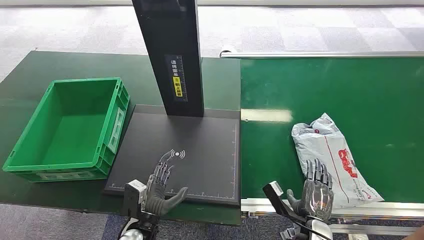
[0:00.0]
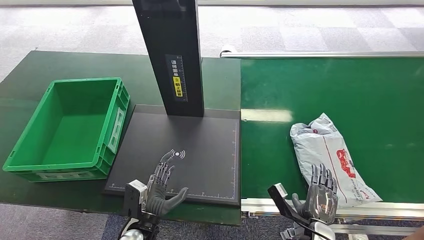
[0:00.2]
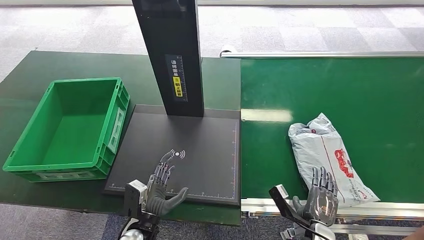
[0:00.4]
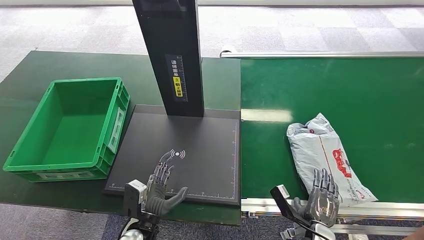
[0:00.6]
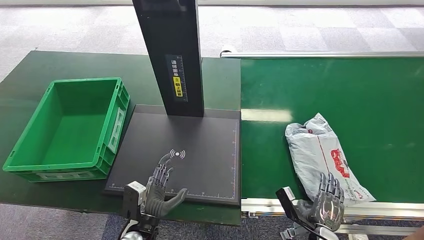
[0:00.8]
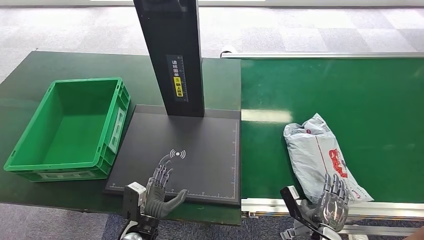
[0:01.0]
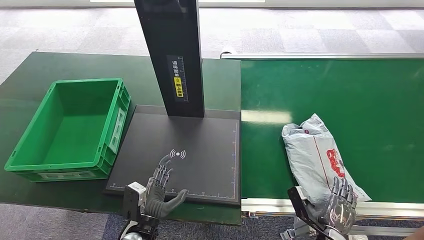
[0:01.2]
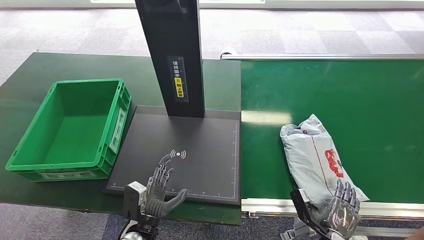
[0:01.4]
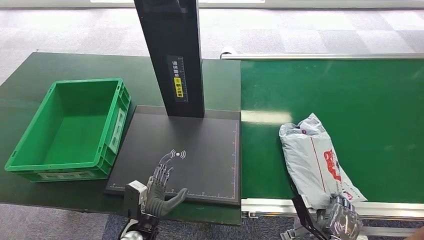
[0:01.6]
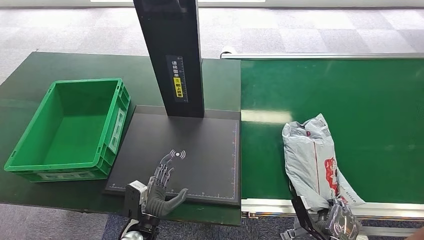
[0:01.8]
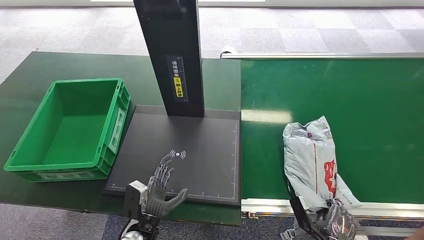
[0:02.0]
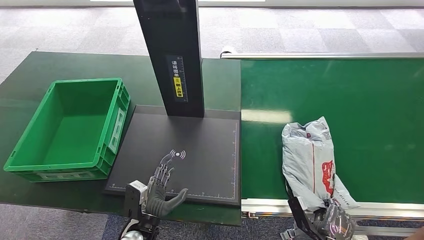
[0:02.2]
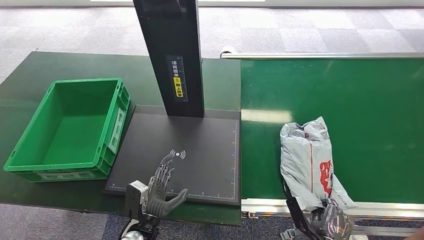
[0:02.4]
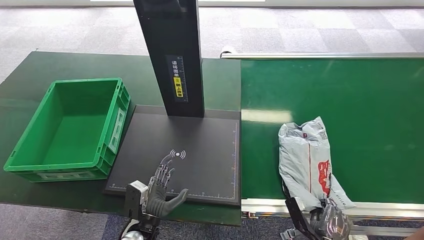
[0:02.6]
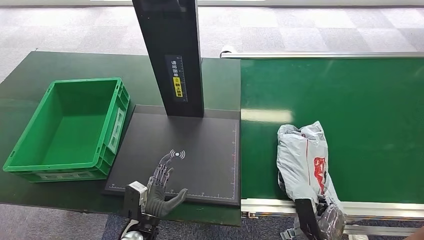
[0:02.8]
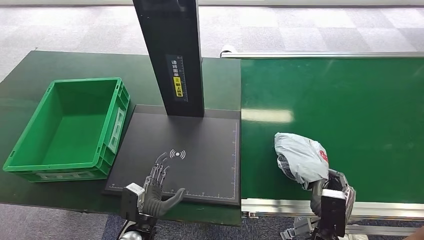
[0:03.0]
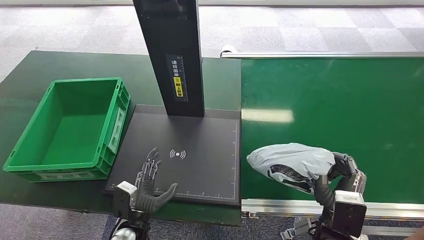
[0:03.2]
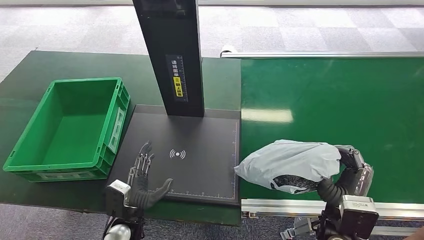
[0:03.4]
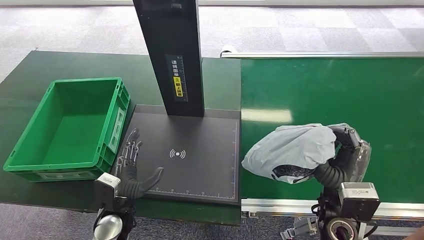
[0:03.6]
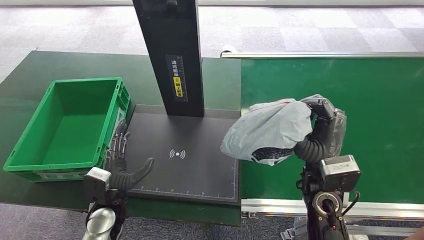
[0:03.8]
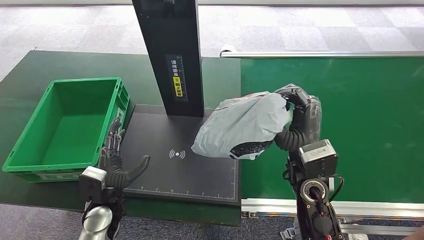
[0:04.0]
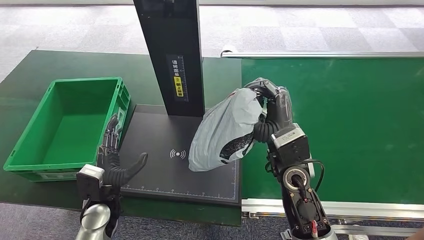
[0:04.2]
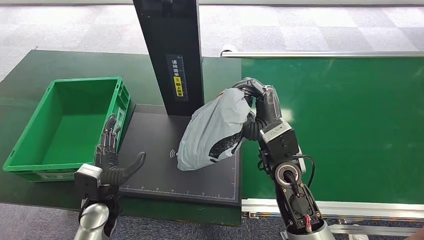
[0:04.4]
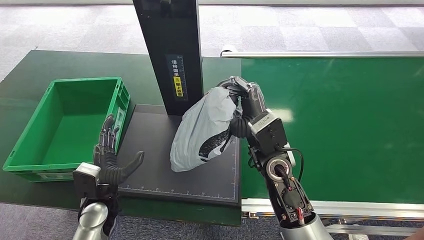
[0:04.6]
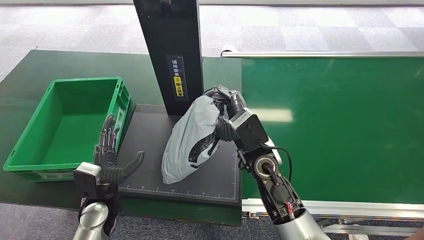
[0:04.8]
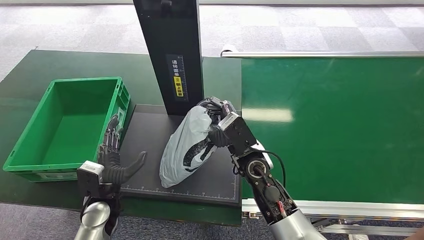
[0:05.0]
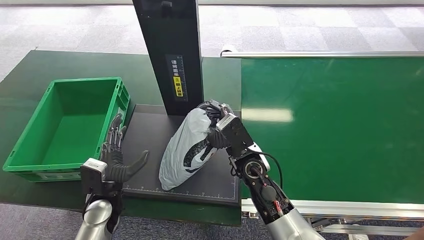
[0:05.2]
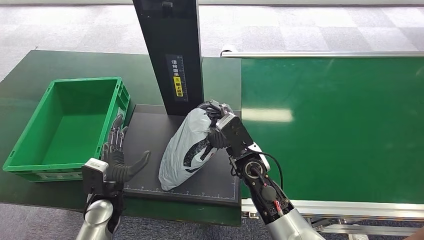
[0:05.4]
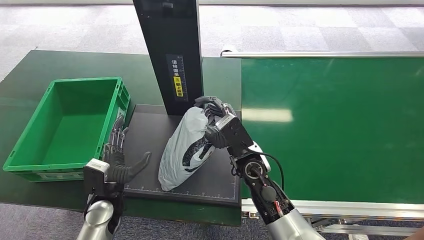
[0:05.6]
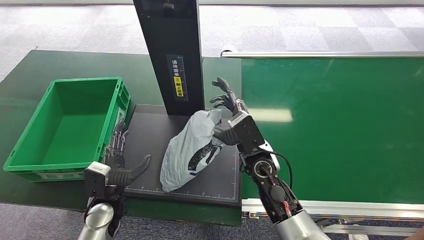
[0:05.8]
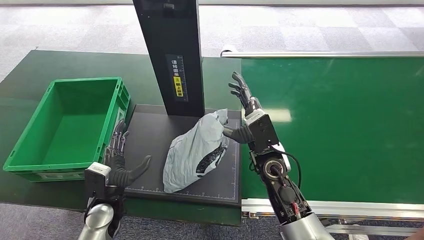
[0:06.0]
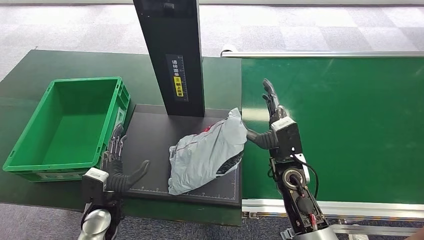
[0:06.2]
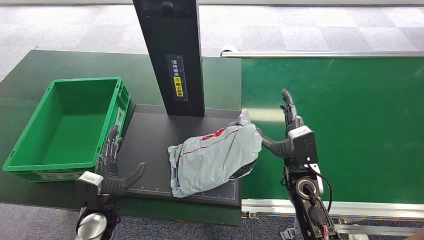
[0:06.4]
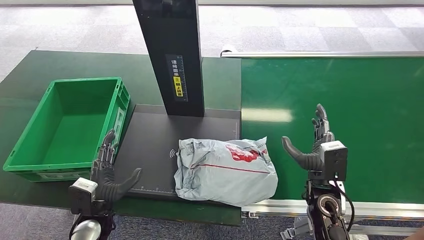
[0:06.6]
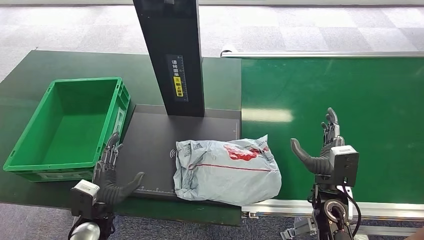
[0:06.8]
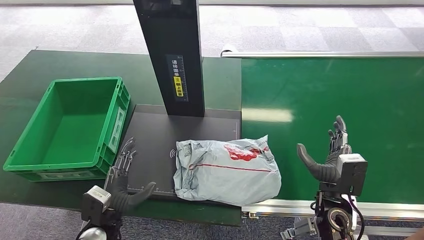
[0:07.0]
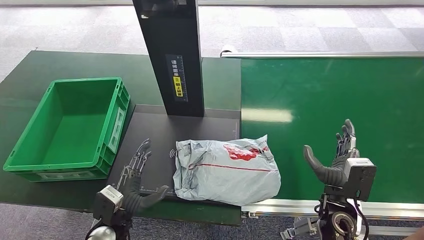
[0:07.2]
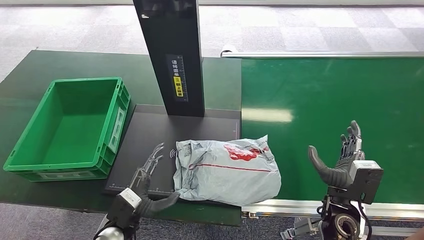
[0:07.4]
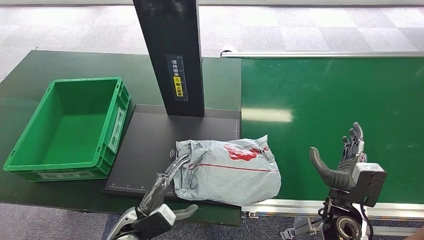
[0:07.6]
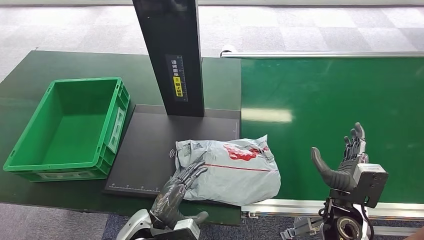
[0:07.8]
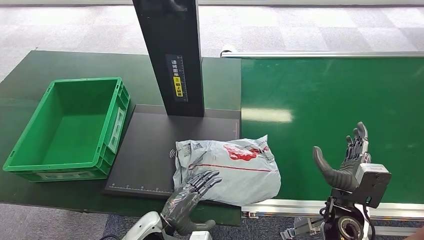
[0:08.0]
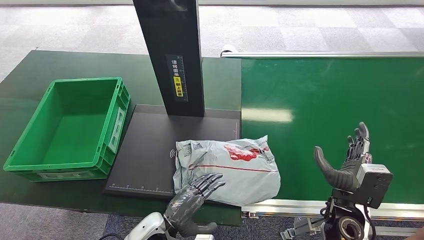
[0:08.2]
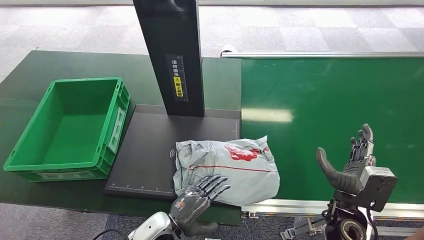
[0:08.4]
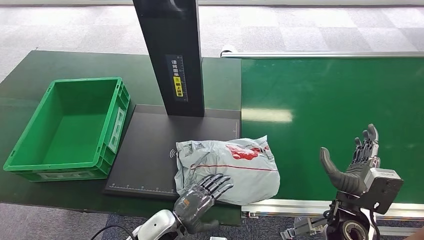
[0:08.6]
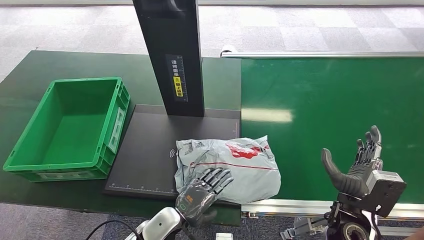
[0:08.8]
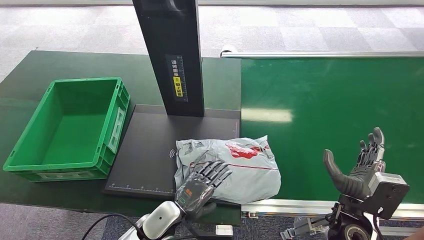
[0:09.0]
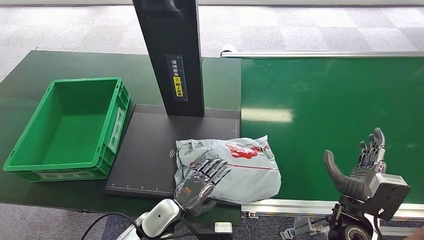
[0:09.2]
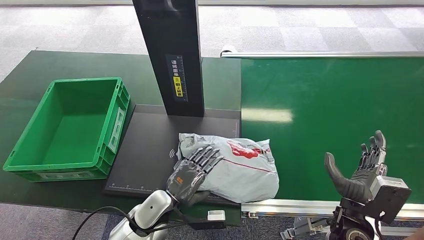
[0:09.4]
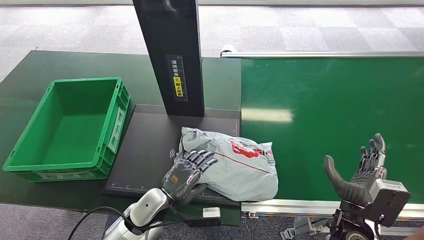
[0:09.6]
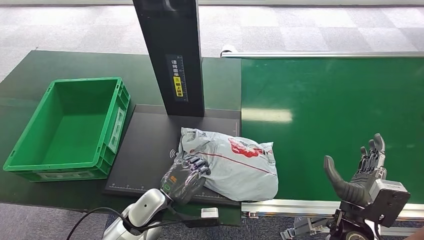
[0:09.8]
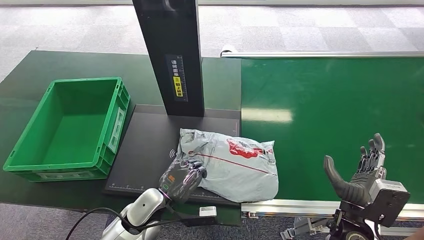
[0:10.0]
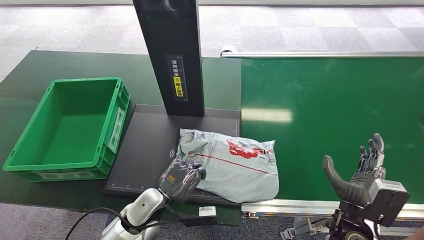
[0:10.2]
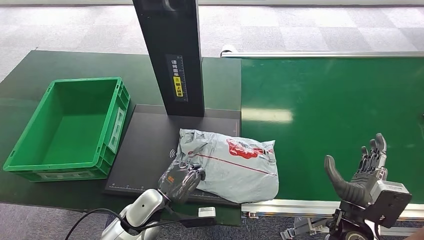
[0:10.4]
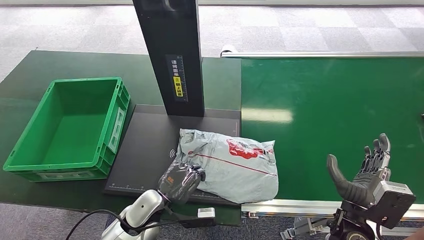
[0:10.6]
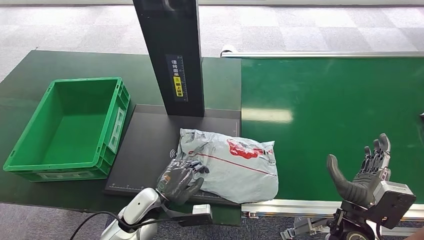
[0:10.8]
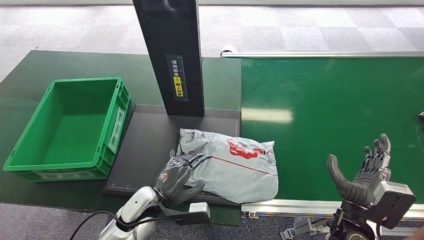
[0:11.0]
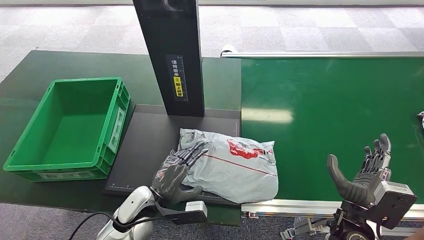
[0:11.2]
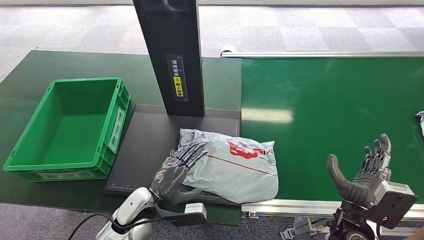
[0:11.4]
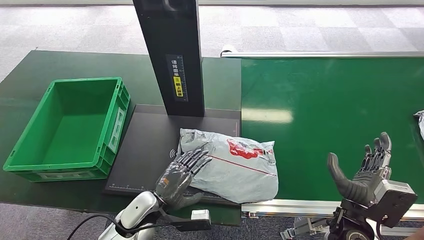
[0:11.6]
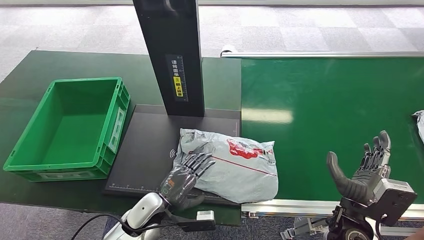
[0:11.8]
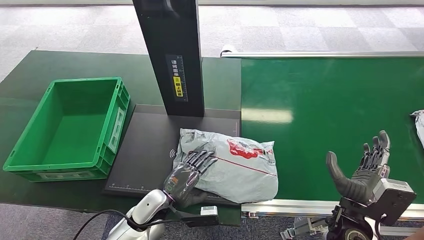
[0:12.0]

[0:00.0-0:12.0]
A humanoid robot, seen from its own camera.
Step, 0:00.0 to 0:03.8: Pick up the package from the conveyor belt.
Step, 0:04.0 to 0:06.8: Place the package onto the inbound machine.
0:01.6 to 0:03.0: The right hand shifts roughly 10 cm upward and to the left.
0:03.0 to 0:04.4: The left hand moves to the left, upward and forward, roughly 15 cm; the right hand heads upward, forward and to the left, covering roughly 25 cm.
0:04.4 to 0:06.0: The right hand heads downward, covering some 5 cm.
0:06.0 to 0:07.6: The left hand is displaced to the right and backward by some 10 cm. The right hand is displaced to the right and backward by about 20 cm.
0:07.6 to 0:09.0: The left hand heads to the right, covering some 5 cm.
0:09.0 to 0:10.4: The left hand moves approximately 5 cm.
0:10.4 to 0:12.0: The hands move only a little.

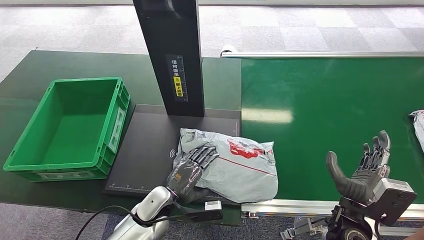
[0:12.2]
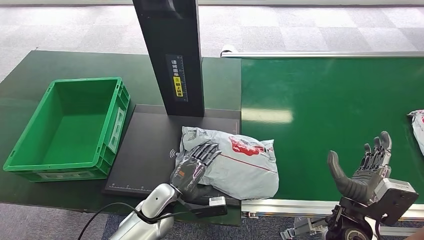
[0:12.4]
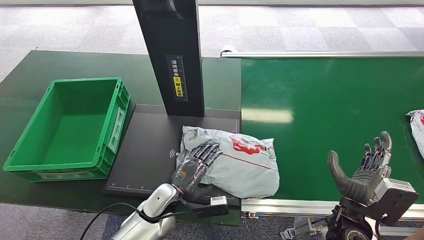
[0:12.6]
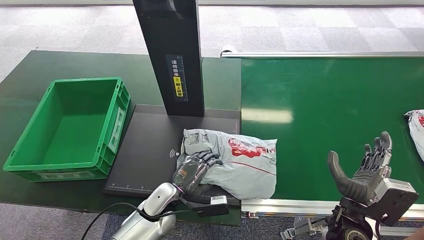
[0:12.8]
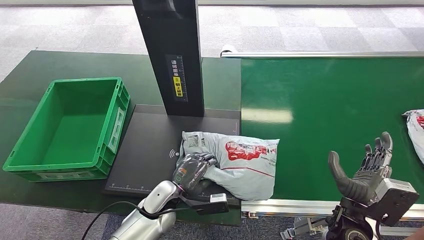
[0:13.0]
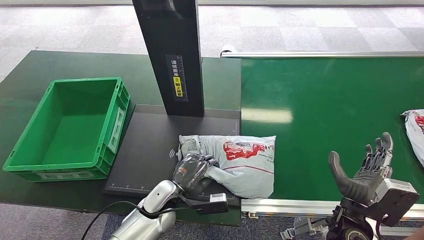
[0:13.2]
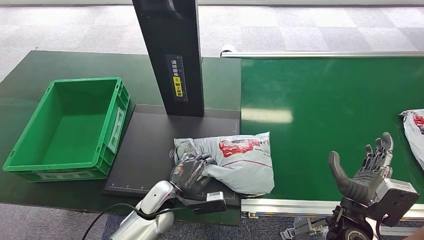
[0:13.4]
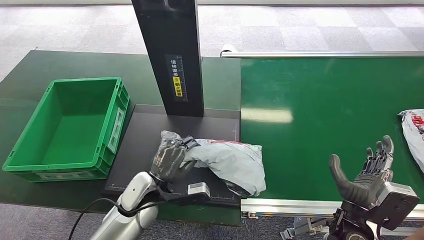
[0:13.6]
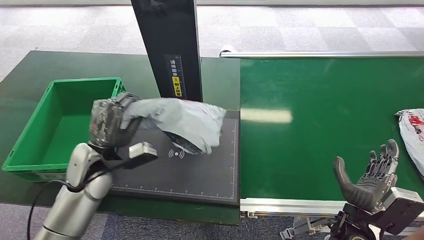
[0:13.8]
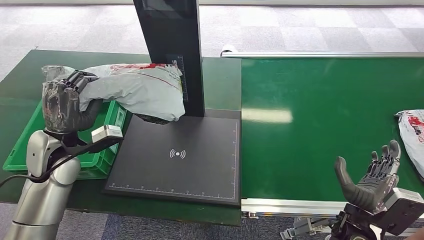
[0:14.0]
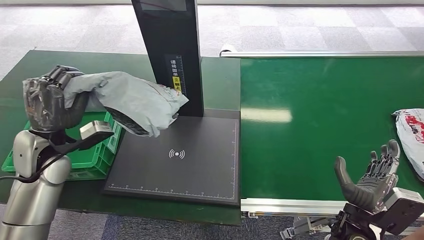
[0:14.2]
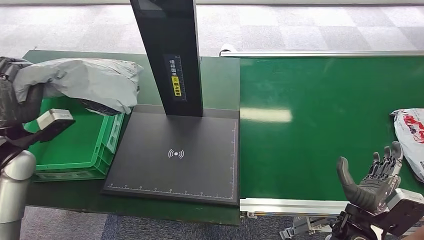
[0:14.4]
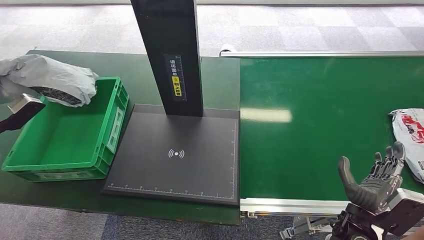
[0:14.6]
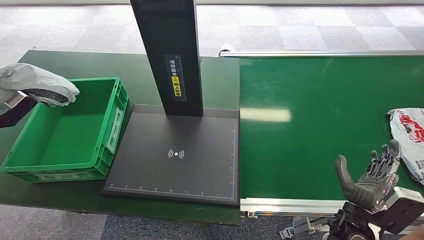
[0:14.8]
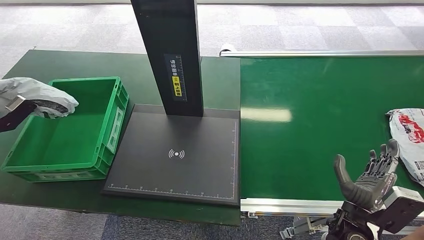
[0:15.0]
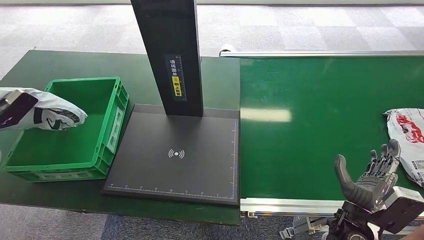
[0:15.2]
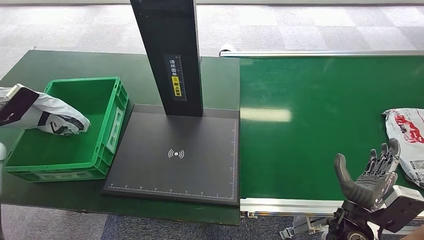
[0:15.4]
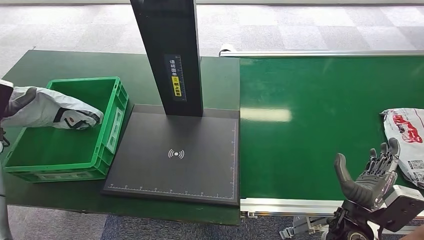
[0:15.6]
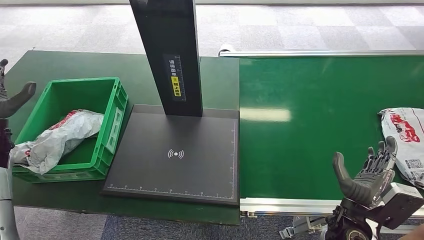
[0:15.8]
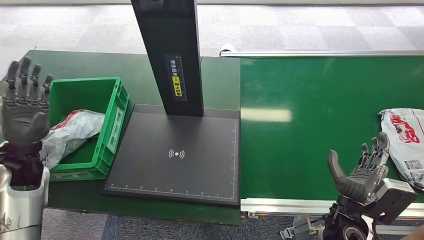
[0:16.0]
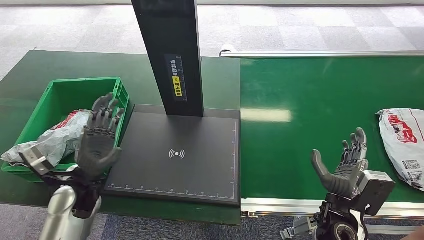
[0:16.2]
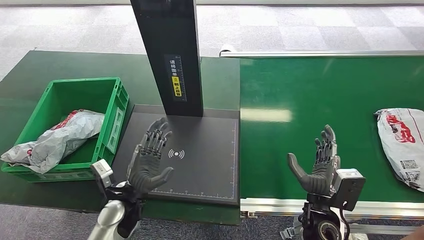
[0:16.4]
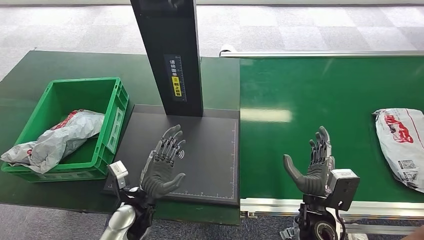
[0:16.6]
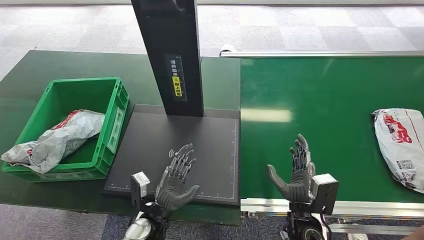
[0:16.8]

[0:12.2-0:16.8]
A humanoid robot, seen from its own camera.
Step, 0:12.2 to 0:14.2: Pick up the package from the inbound machine.
Step, 0:14.4 to 0:16.6: Place the package into the parcel locker.
0:13.8 to 0:15.2: The left hand is displaced to the left by roughly 30 cm.
0:15.2 to 0:16.8: The right hand is displaced to the left by approximately 10 cm. Meanwhile the left hand shifts approximately 50 cm to the right and downward.
